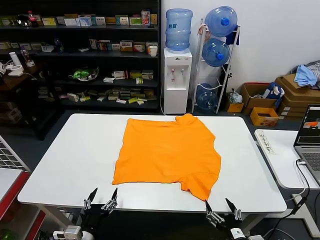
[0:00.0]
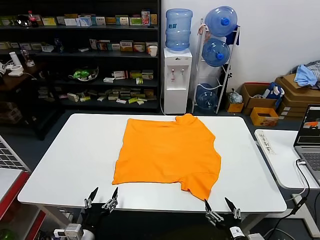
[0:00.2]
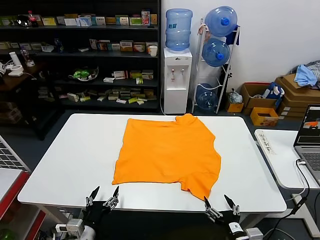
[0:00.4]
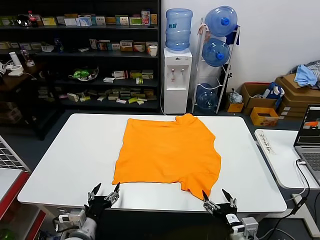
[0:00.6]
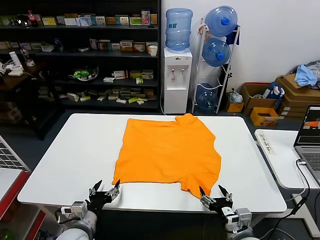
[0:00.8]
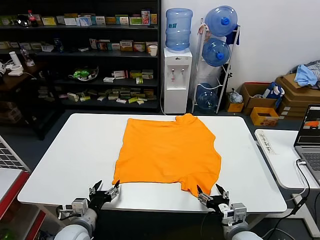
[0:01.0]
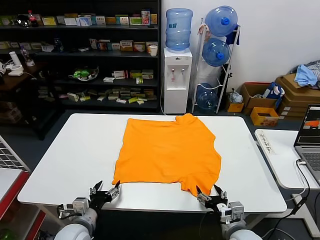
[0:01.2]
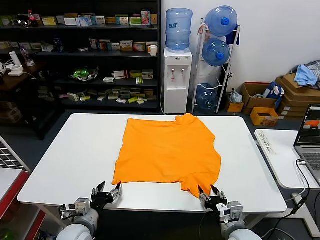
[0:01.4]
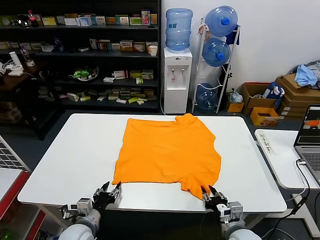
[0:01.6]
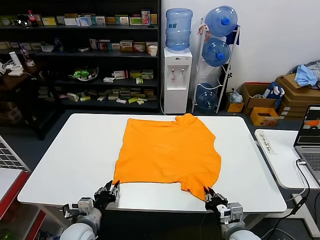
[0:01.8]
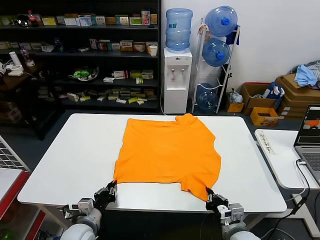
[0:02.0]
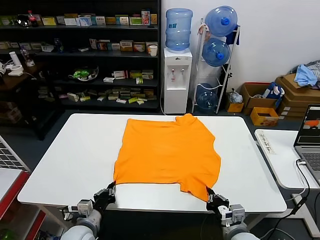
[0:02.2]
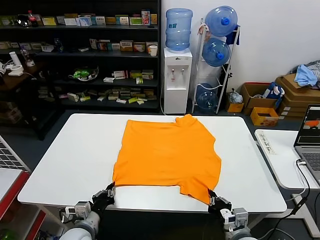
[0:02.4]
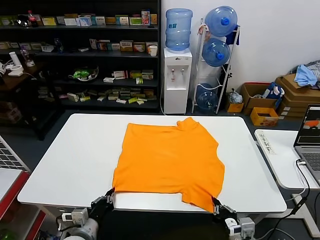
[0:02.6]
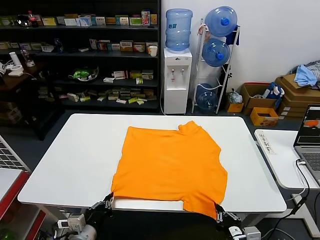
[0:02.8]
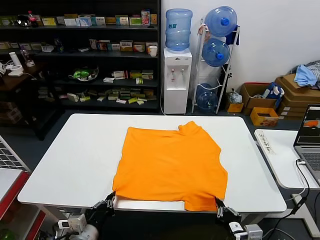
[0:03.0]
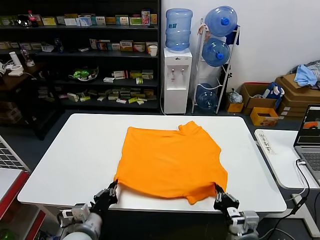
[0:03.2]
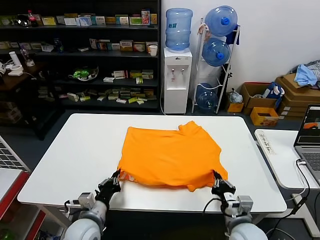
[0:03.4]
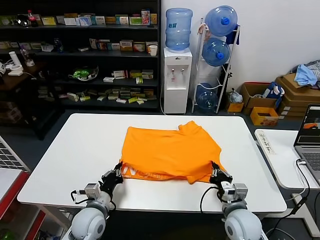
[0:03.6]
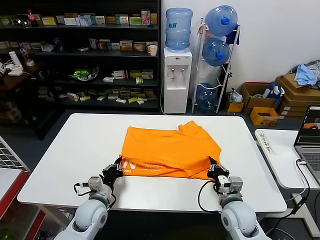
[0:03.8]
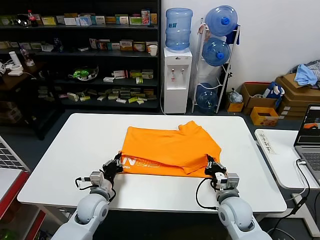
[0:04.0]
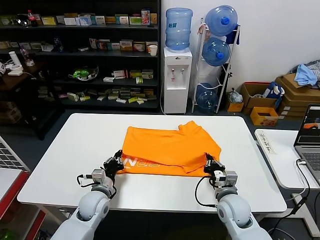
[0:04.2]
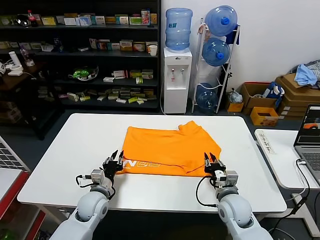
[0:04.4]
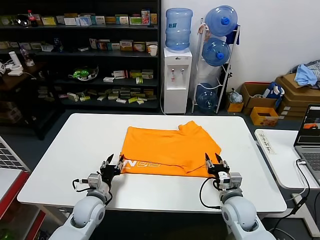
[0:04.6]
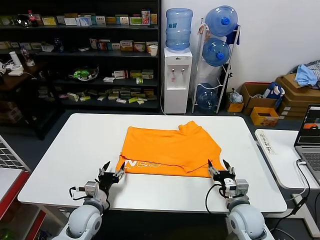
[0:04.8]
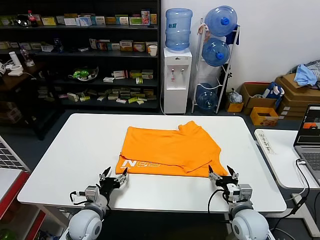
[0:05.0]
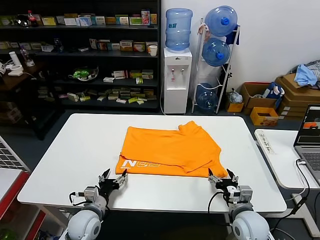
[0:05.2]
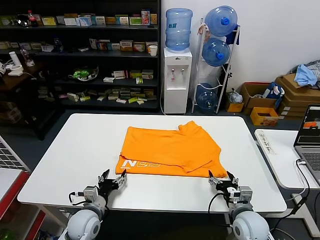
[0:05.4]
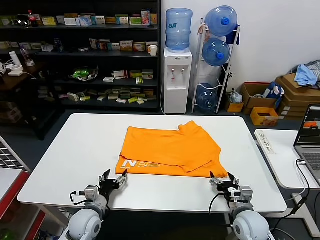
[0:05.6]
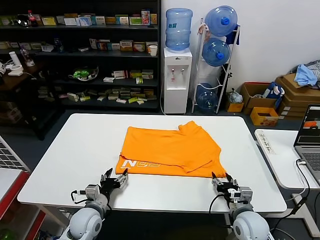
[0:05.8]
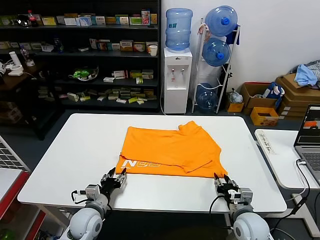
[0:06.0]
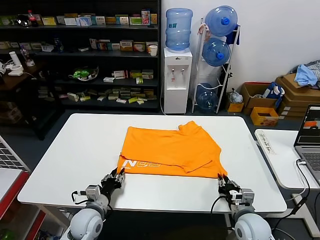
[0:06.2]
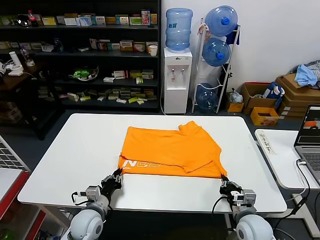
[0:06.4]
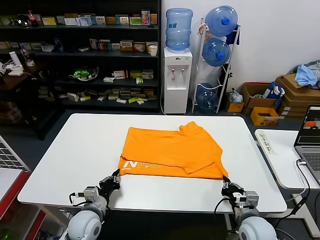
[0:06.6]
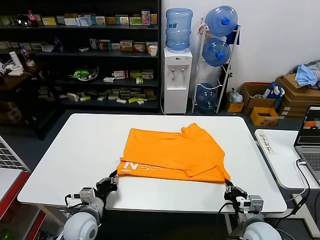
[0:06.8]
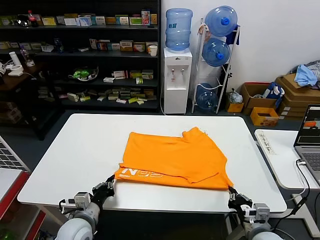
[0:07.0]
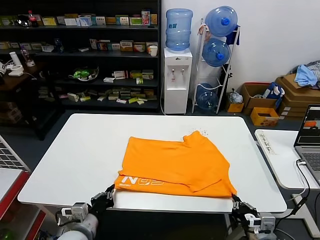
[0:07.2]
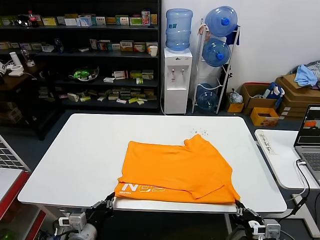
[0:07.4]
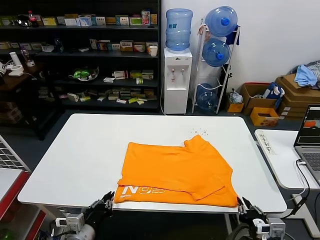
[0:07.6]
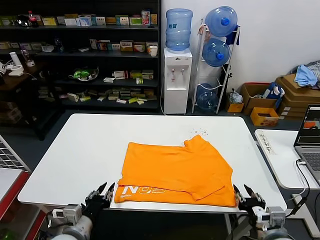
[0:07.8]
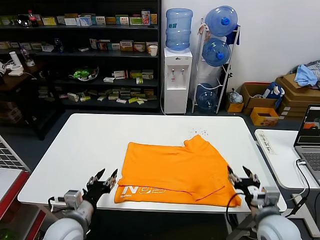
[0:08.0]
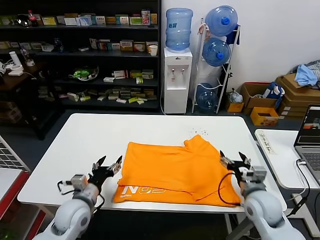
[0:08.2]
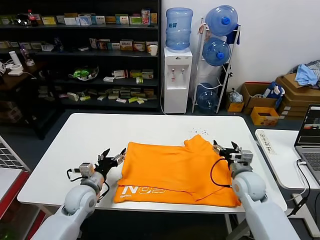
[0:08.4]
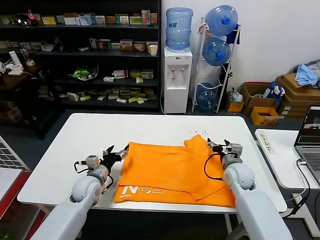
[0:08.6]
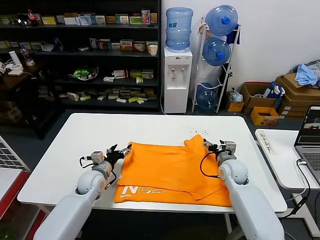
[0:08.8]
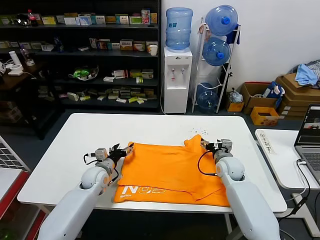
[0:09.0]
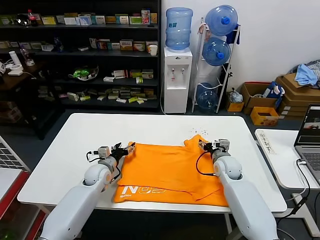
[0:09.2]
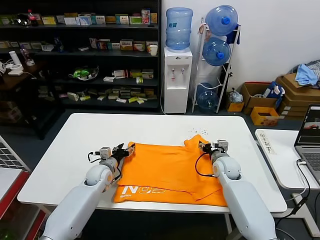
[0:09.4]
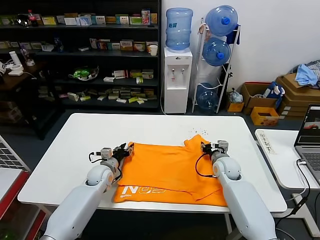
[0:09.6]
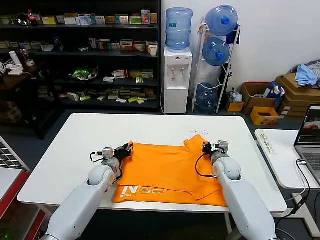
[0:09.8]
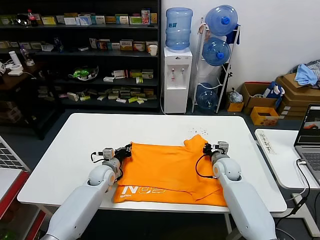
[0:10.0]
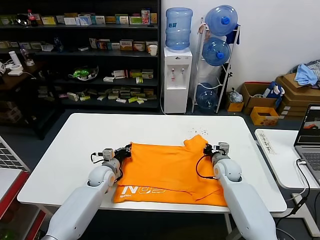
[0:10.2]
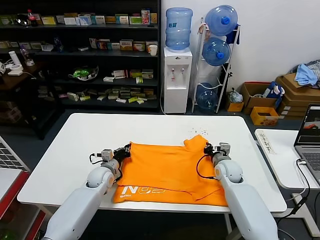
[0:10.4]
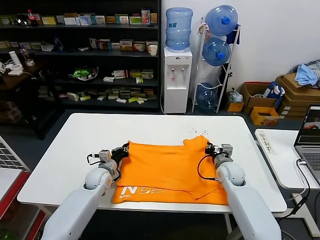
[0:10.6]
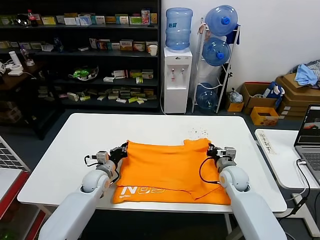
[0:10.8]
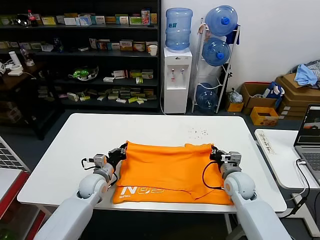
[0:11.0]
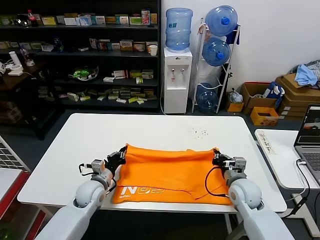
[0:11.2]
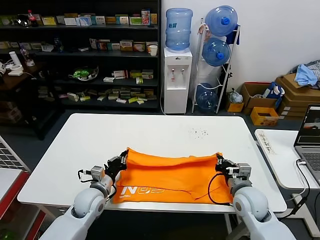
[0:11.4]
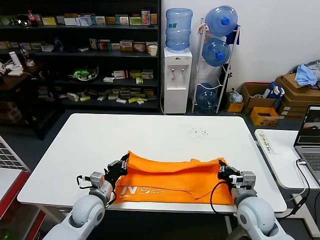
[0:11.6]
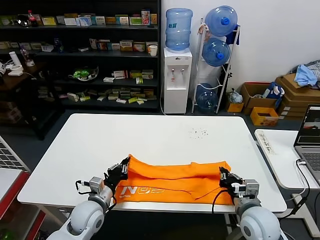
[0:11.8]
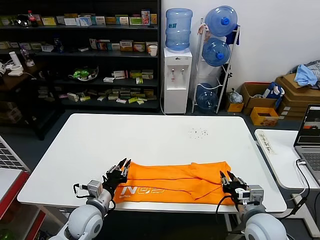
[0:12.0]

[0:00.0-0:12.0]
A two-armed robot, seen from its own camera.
Task of the whole recording: fold and organize the clothes.
Step, 0:00.0 to 0:02.2: use both grippers simultaneously to clamp the lower edge of the clothing fabric.
Step, 0:02.4 to 0:04.4: use both grippers to drag the lower edge of the fabric forward and fold it over the upper edge.
Step, 0:04.6 to 0:07.4: Drag the clothes downward with both gripper.
Step, 0:07.8 to 0:10.2: use both grippers simultaneously to clamp the upper edge of the clothing fabric.
Step, 0:10.4 to 0:12.0: use both grippers to drag the upper edge of the fabric backward and fold it over the lower edge.
0:01.6 to 0:03.0: The two grippers go about 5 cm backward. The left gripper closes up.
0:03.0 to 0:04.4: The grippers both shift forward by roughly 15 cm. The right gripper opens its fingers. Meanwhile the left gripper opens.
0:04.4 to 0:06.0: The left gripper changes place by some 5 cm; the right gripper moves approximately 5 cm, and opens, then closes once more.
0:06.0 to 0:07.6: The two grippers go roughly 15 cm backward and upward. The left gripper closes.
0:07.6 to 0:09.0: Both grippers travel together forward, roughly 30 cm. The right gripper opens its fingers. Meanwhile the left gripper opens its fingers.
0:09.0 to 0:10.4: The right gripper closes; the left gripper closes its fingers.
0:10.4 to 0:12.0: The grippers both shift backward by roughly 20 cm. The right gripper opens up.

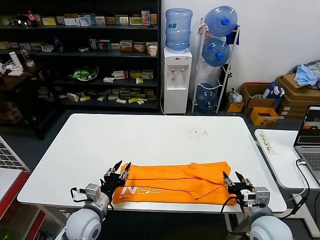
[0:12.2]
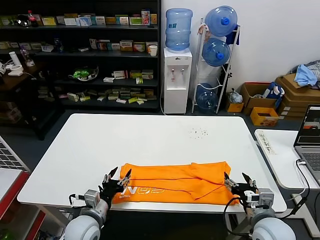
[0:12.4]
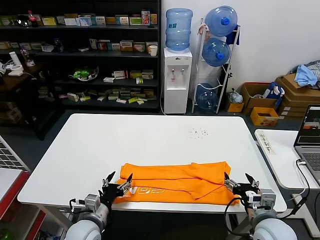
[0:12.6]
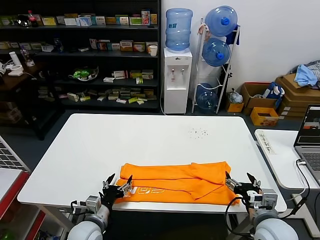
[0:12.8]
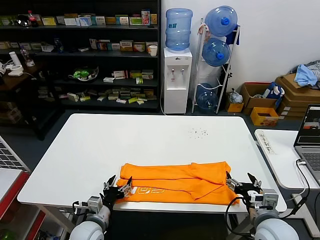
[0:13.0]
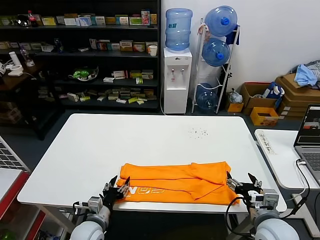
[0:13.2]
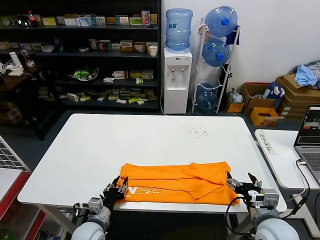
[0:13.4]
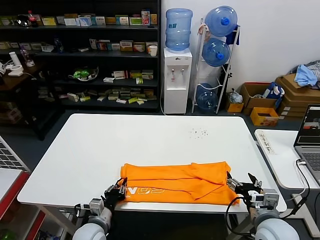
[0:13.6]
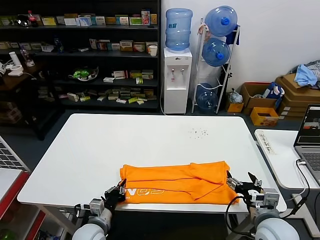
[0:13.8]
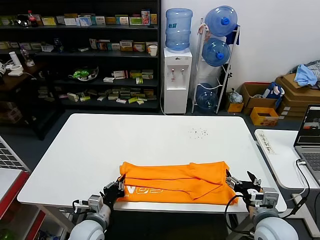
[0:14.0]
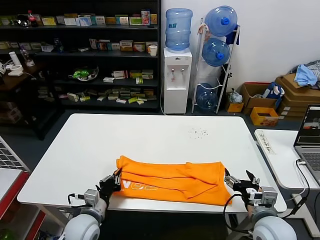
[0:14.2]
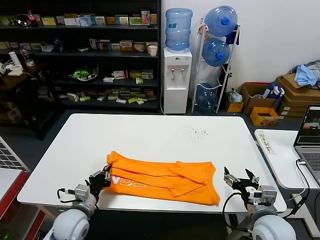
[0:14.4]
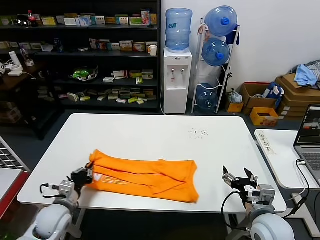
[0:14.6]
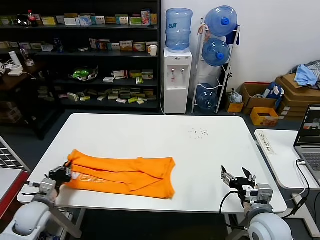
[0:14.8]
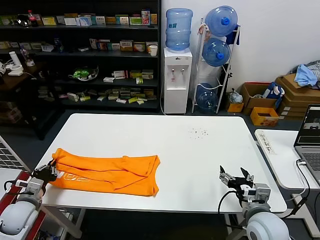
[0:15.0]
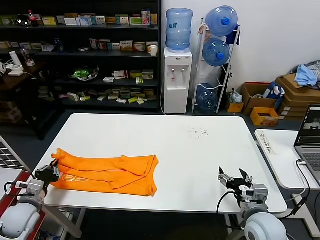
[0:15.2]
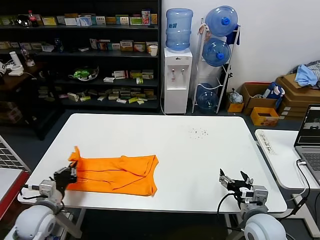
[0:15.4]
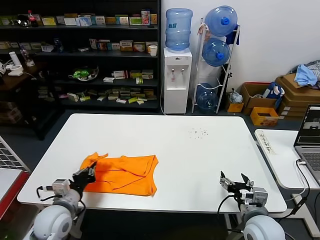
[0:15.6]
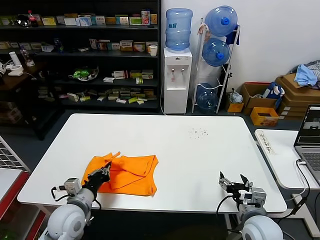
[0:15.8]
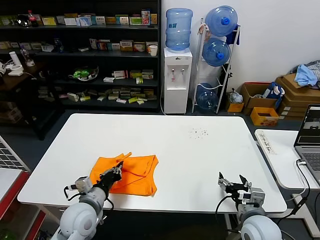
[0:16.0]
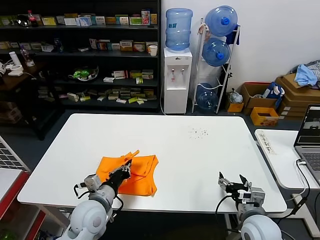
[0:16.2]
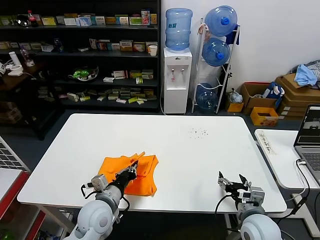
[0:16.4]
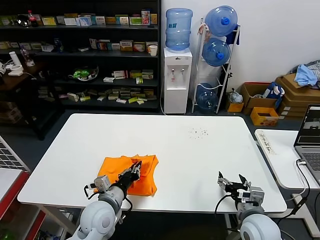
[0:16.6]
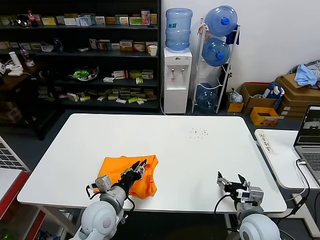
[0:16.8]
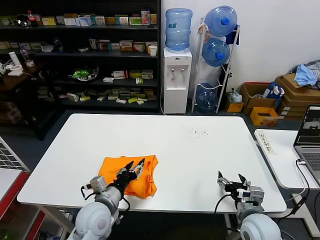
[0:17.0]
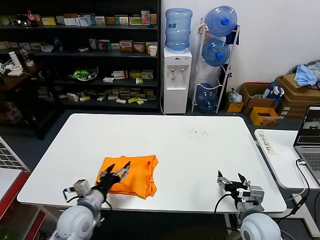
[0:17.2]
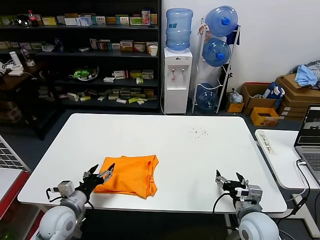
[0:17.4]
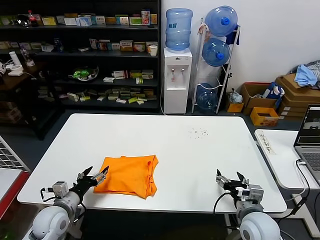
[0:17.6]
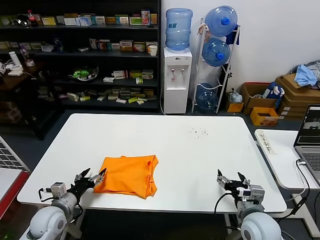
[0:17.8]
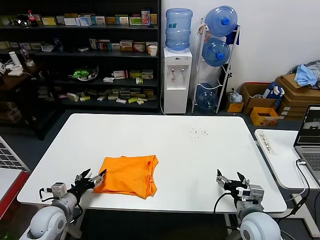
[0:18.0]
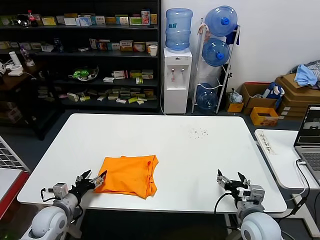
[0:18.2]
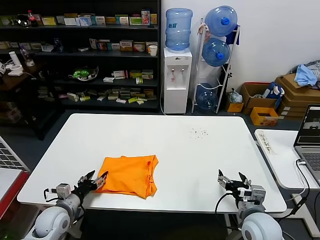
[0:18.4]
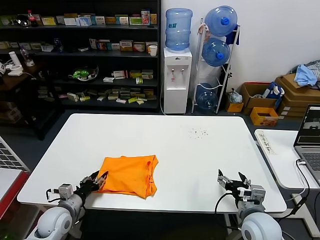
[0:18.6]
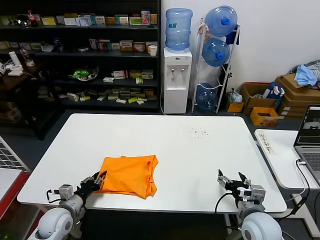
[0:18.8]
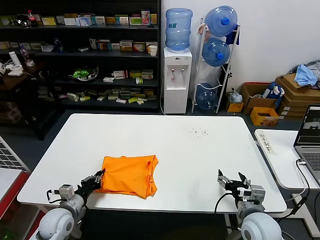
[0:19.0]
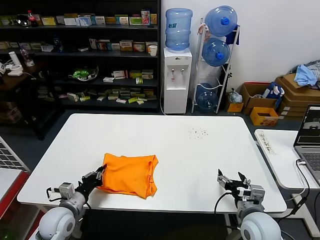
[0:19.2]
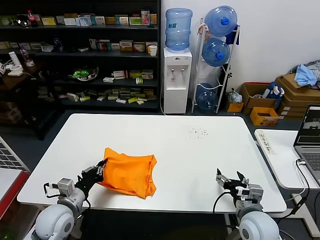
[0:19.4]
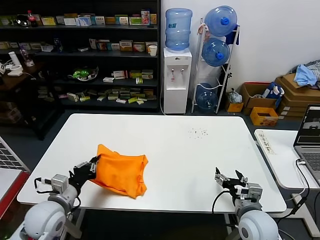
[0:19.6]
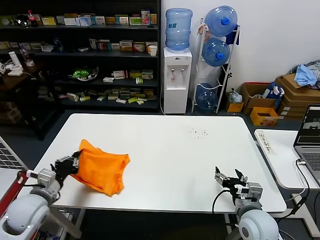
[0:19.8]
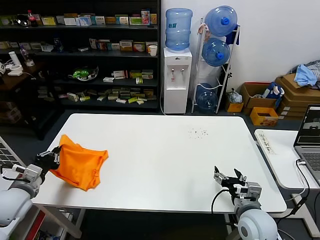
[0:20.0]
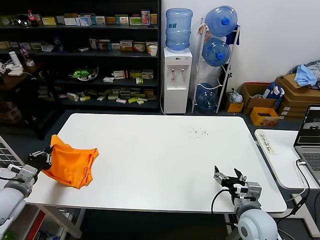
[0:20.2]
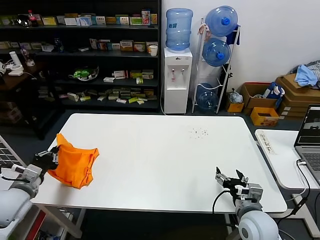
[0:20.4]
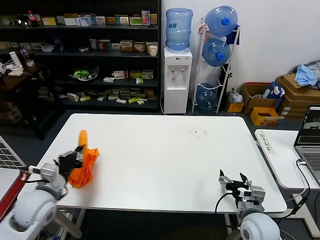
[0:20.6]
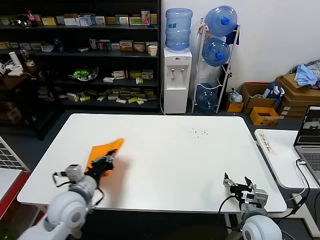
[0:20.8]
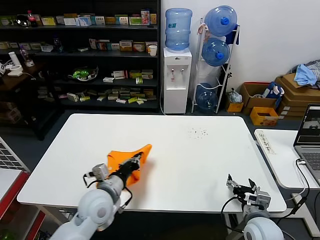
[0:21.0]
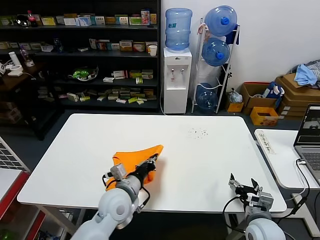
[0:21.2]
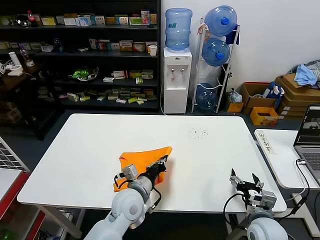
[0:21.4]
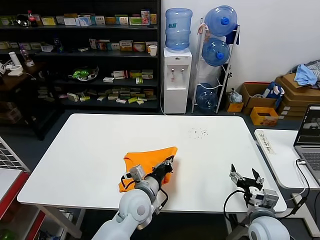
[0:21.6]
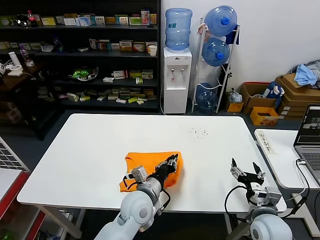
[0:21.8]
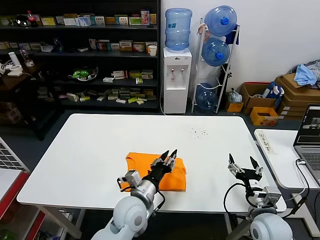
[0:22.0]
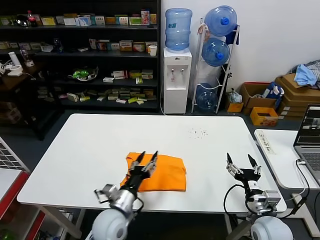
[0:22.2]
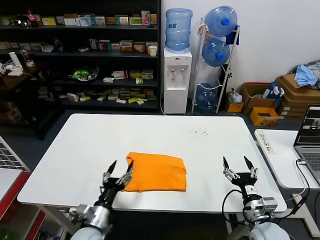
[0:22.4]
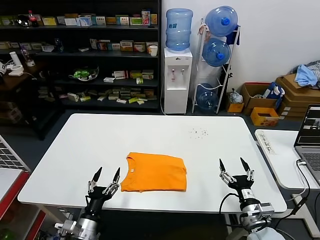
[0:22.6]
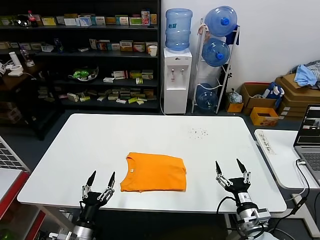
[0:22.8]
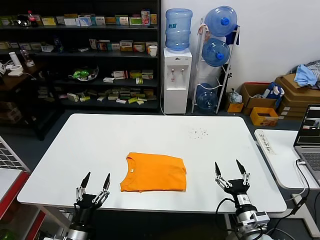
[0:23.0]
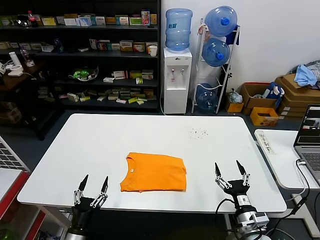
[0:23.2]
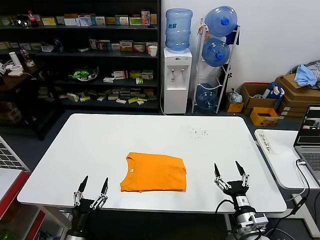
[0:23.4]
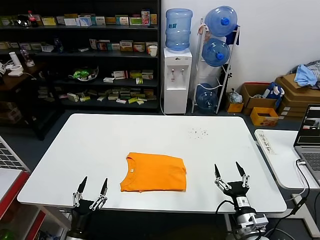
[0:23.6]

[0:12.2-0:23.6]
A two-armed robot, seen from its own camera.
Task of the whole recording: fold and organize the clothes.
Step, 0:12.2 to 0:14.0: use the left gripper to clamp the left edge of the fabric.
Step, 0:14.2 to 0:17.0: use the left gripper to drag the left edge of the fabric to the left and folds it over the right edge.
Step, 0:17.2 to 0:22.0: Flip the folded clothes over with left gripper.
0:12.2 to 0:13.6: The right gripper opens its fingers, while the left gripper heads downward, covering about 5 cm, and opens and closes again.
0:13.6 to 0:15.0: The left gripper is displaced to the left by roughly 20 cm.
0:15.0 to 0:16.4: The left gripper goes roughly 25 cm to the right.
0:16.4 to 0:17.8: The left gripper goes about 15 cm to the left, and opens up.
0:17.8 to 0:19.4: The left gripper shifts by about 5 cm, and closes up.
0:19.4 to 0:20.8: The left gripper moves upward, roughly 5 cm, and goes to the left and returns, approximately 15 cm each way.
0:20.8 to 0:22.2: The left gripper travels to the right and downward by roughly 15 cm, and opens up.
0:22.2 to 0:23.6: The left gripper shifts about 25 cm to the left, backward and downward. Meanwhile the right gripper heads downward, covering approximately 5 cm.
